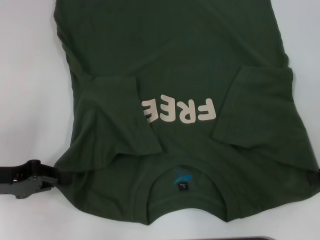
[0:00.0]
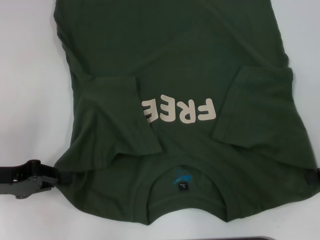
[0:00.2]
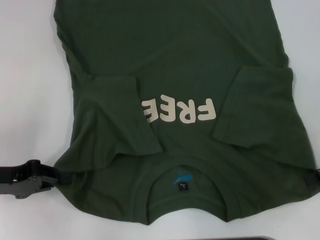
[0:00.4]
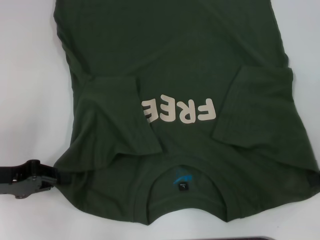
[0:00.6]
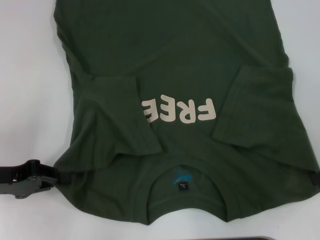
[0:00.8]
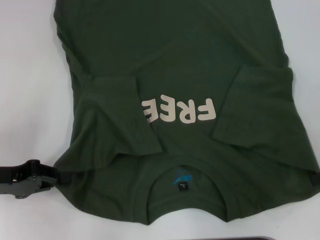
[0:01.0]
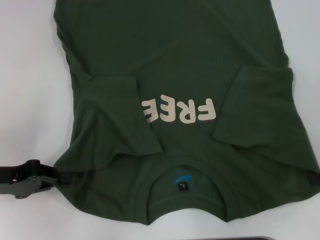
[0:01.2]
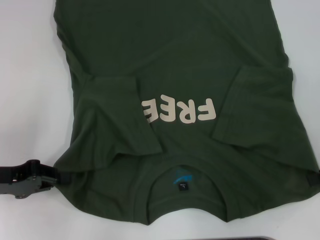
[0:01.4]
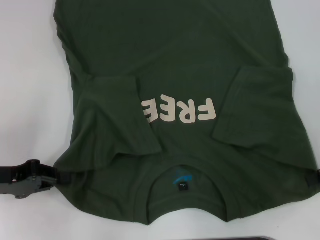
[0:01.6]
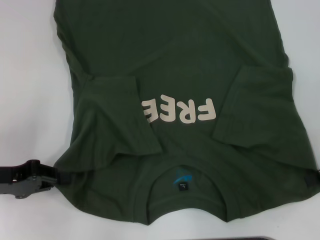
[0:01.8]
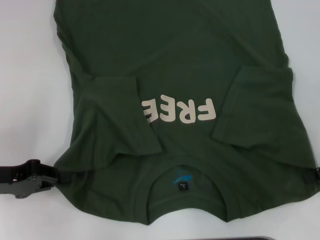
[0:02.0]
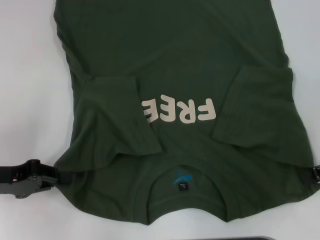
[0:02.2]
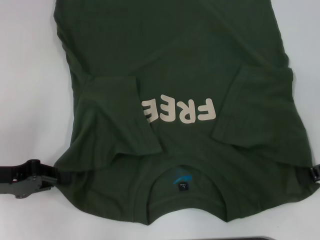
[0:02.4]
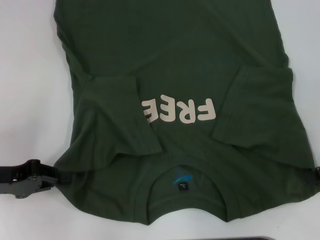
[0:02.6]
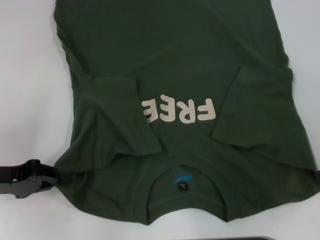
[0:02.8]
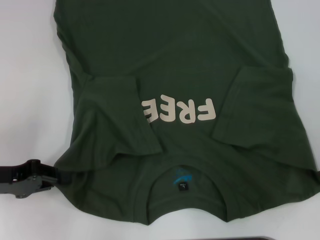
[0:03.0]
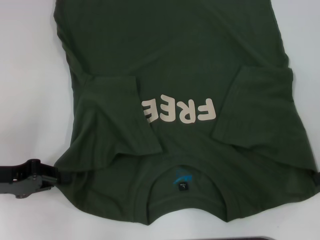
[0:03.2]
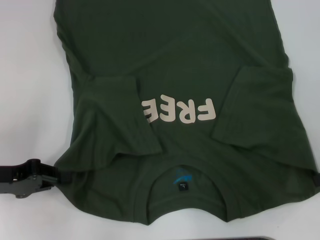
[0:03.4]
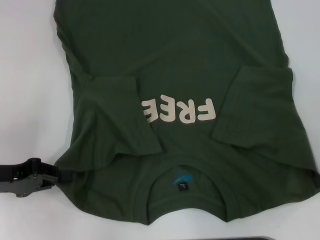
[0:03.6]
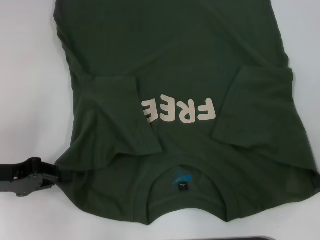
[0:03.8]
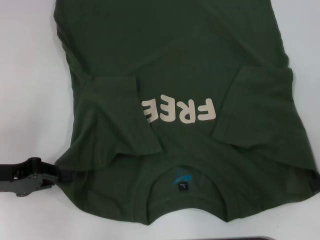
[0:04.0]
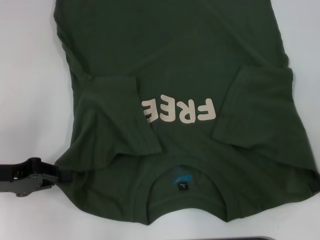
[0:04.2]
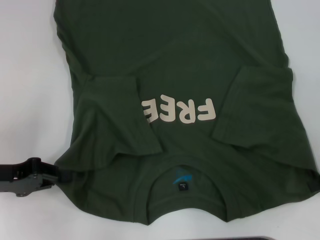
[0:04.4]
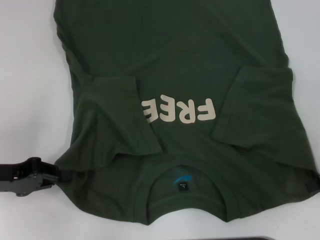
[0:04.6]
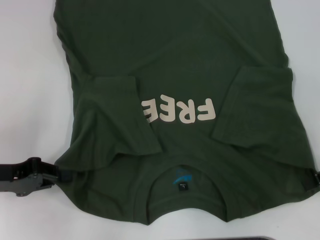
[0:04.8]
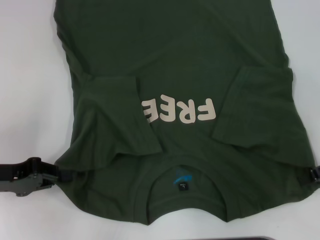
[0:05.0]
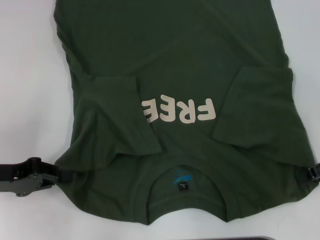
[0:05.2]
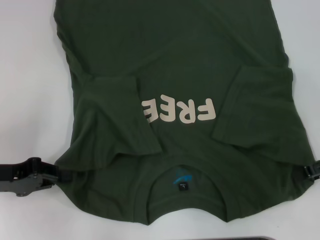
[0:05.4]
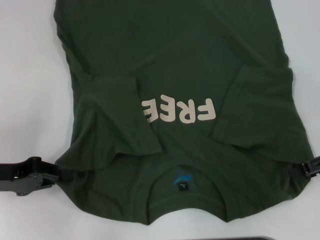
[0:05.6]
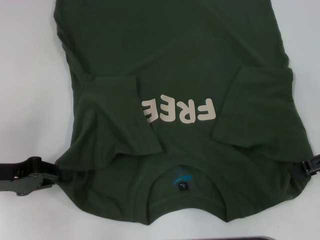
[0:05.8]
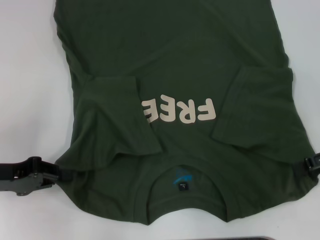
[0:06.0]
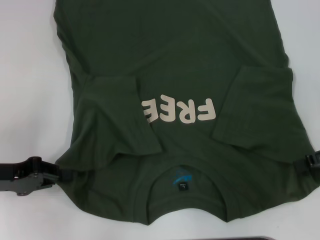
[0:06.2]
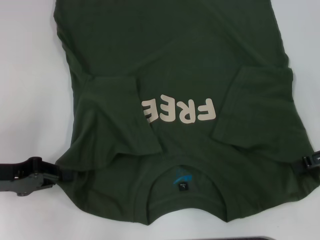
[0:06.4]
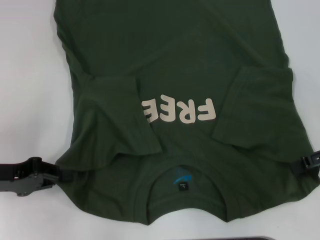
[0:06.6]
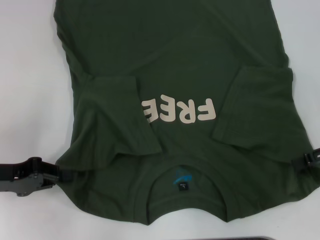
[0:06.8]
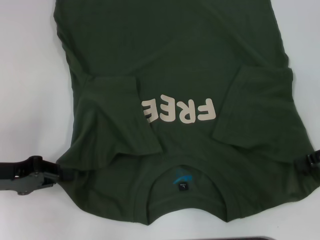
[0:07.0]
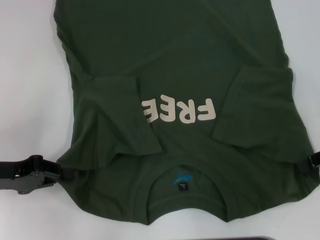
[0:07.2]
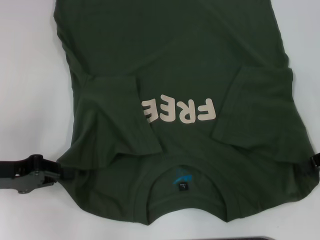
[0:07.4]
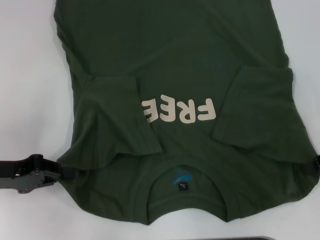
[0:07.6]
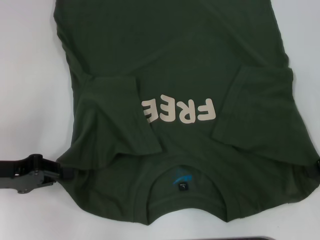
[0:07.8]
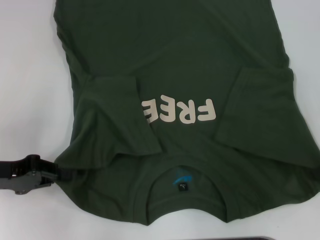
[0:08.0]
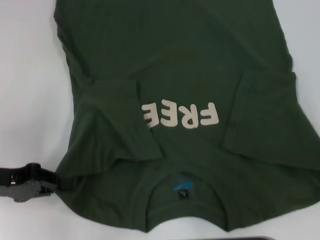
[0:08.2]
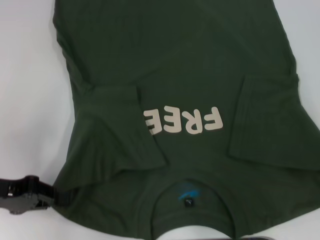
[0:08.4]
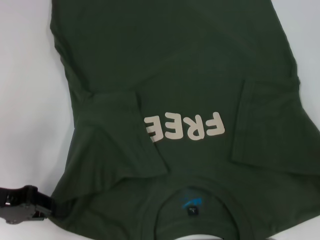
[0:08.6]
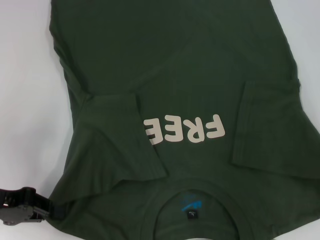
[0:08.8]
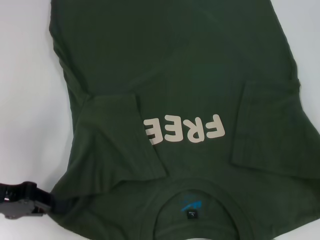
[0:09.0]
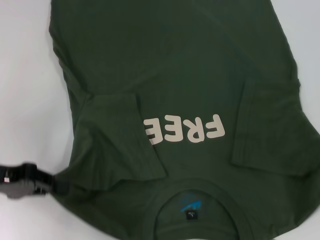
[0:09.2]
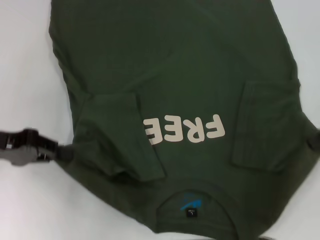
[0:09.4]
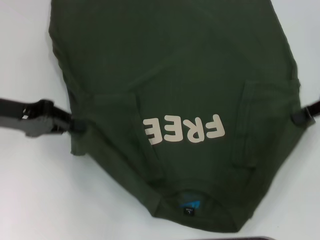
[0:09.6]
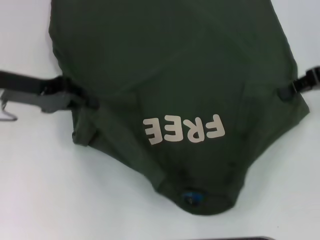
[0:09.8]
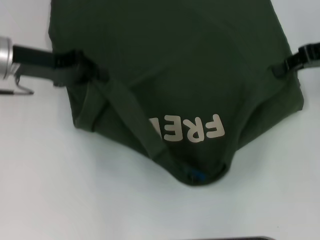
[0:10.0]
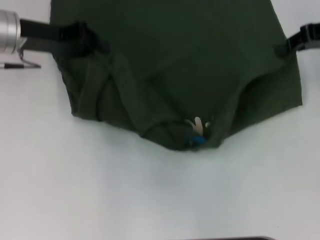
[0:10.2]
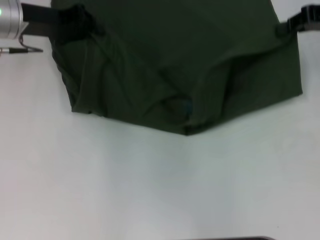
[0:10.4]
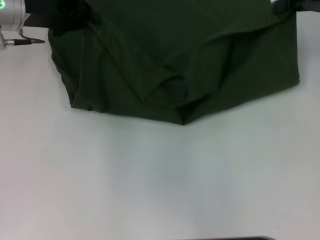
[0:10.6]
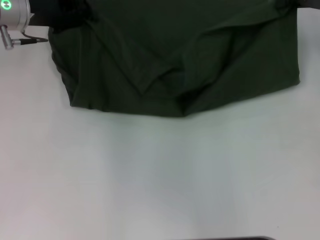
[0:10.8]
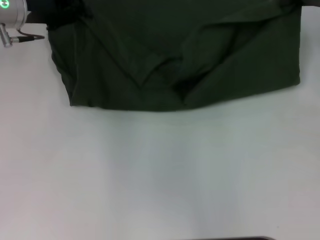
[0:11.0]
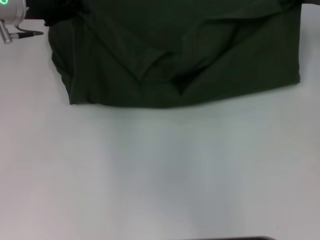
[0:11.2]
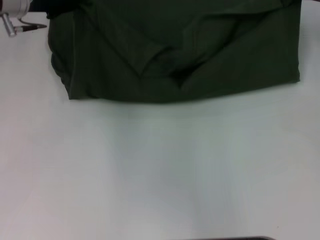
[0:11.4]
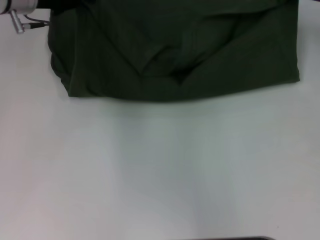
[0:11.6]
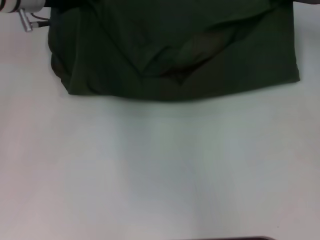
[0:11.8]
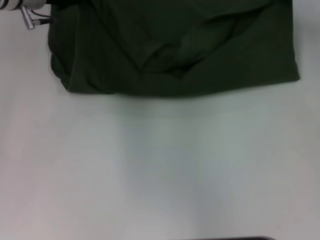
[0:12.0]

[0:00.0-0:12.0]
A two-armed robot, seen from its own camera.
Step, 0:00.0 to 0:08.2: Grab the bottom right corner with your right hand.
0:00.0 to 0:01.6: Neither gripper changes place.
0:04.4 to 0:06.0: The grippers make only small movements.
0:09.0 to 0:10.4: The right gripper goes roughly 15 cm forward, upward and to the left; the left gripper heads forward, upward and to the right, covering approximately 20 cm.
0:10.4 to 0:12.0: The left gripper ends up about 5 cm from where it was; the right gripper shifts by approximately 5 cm.

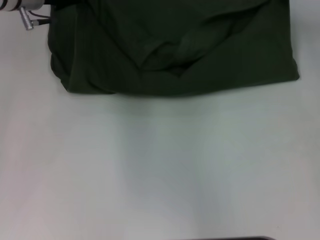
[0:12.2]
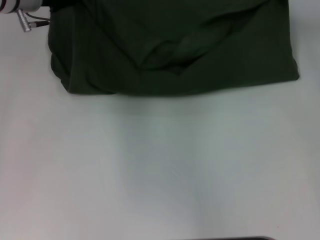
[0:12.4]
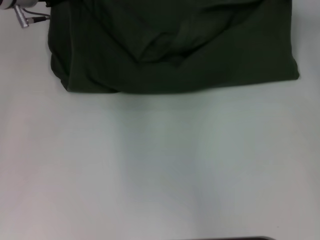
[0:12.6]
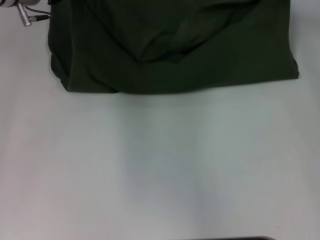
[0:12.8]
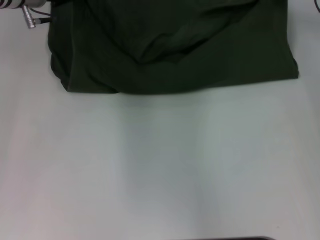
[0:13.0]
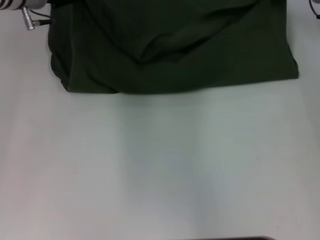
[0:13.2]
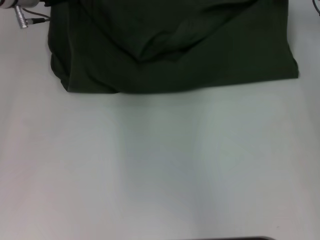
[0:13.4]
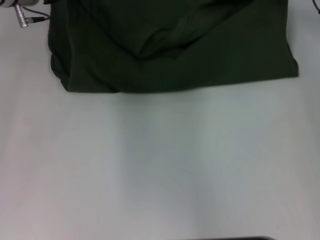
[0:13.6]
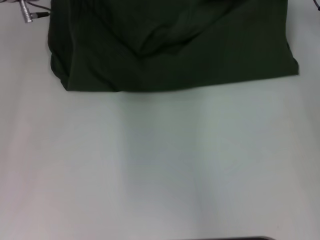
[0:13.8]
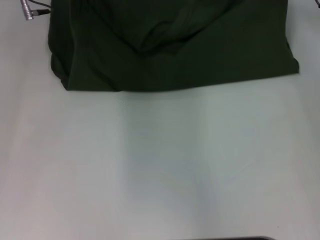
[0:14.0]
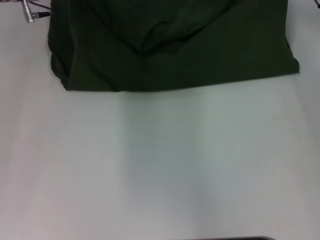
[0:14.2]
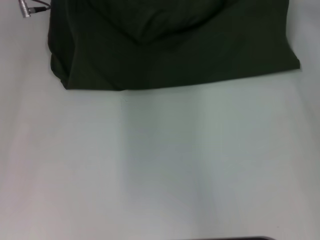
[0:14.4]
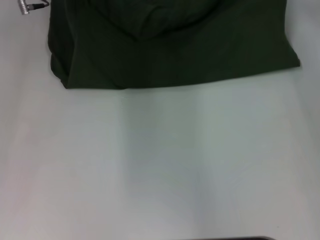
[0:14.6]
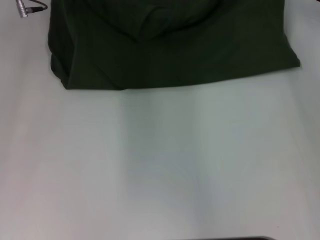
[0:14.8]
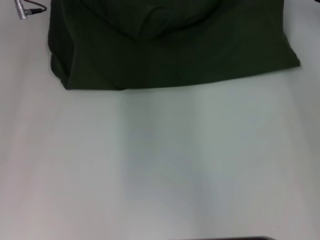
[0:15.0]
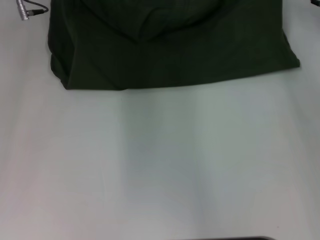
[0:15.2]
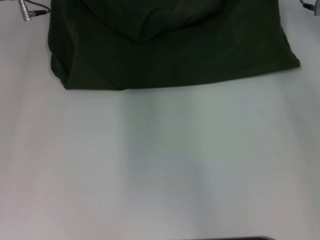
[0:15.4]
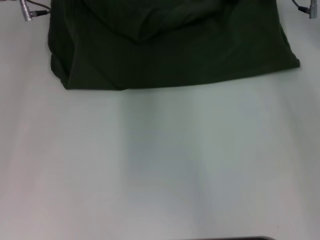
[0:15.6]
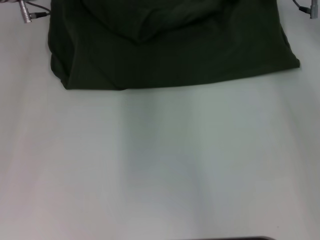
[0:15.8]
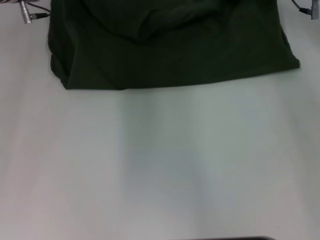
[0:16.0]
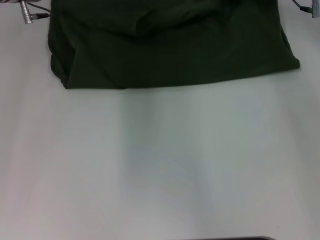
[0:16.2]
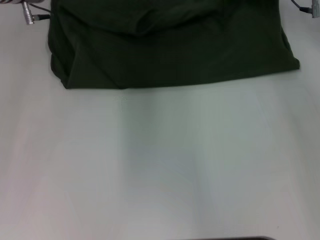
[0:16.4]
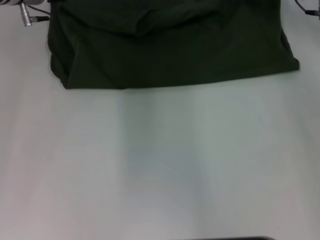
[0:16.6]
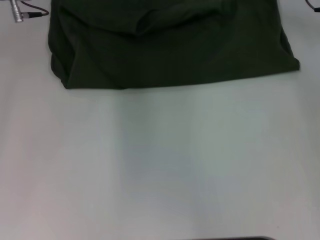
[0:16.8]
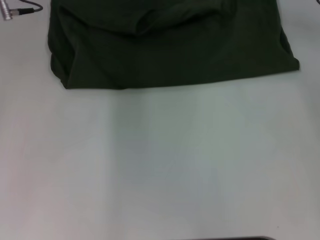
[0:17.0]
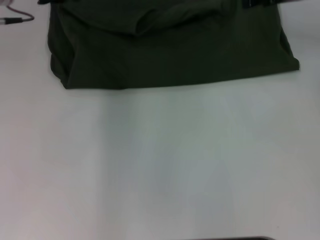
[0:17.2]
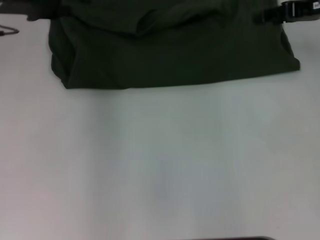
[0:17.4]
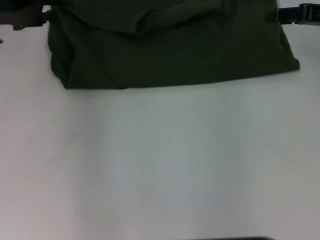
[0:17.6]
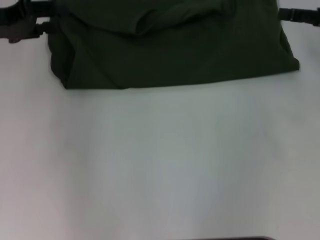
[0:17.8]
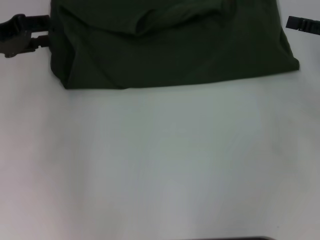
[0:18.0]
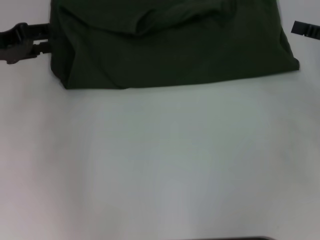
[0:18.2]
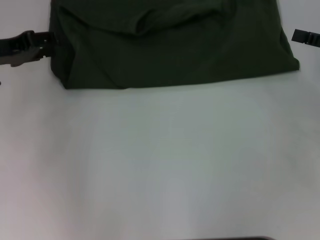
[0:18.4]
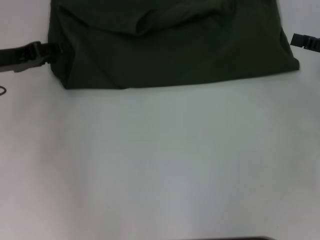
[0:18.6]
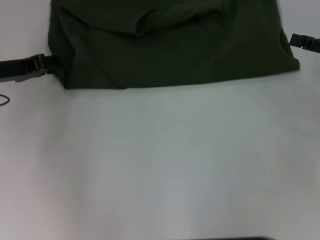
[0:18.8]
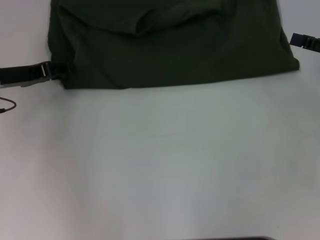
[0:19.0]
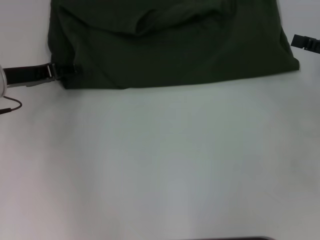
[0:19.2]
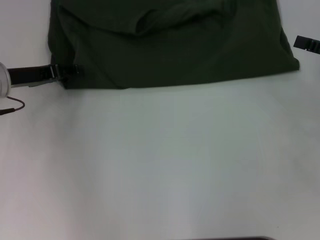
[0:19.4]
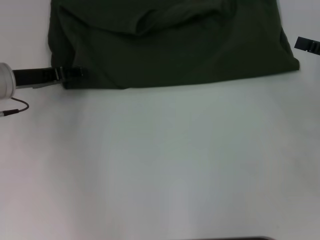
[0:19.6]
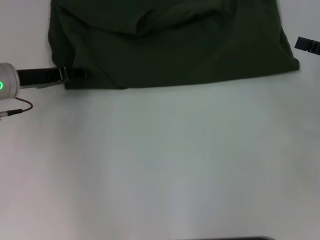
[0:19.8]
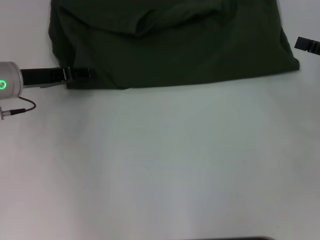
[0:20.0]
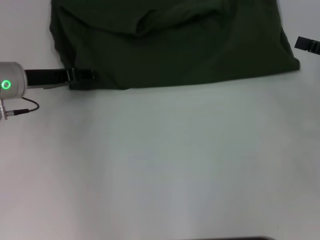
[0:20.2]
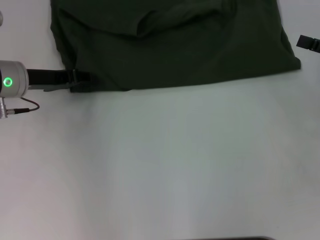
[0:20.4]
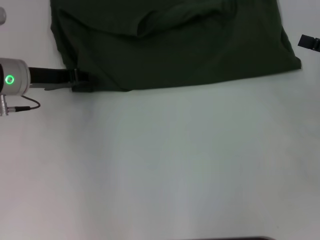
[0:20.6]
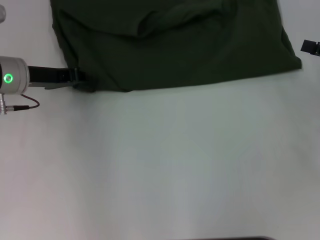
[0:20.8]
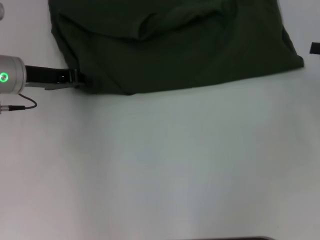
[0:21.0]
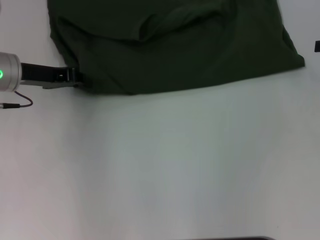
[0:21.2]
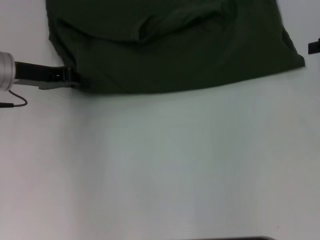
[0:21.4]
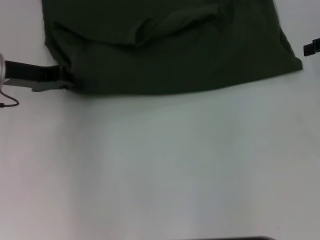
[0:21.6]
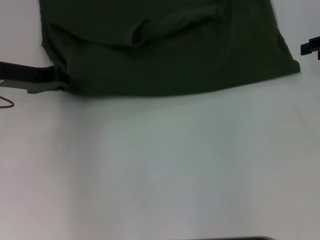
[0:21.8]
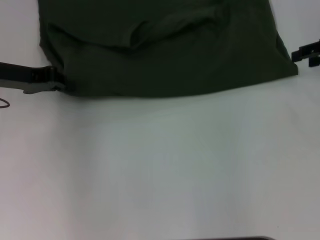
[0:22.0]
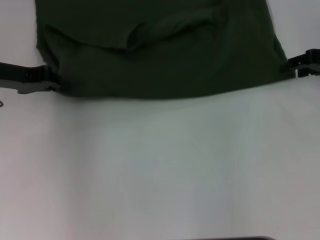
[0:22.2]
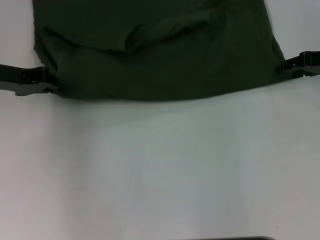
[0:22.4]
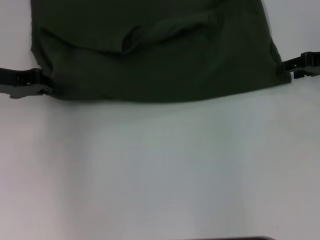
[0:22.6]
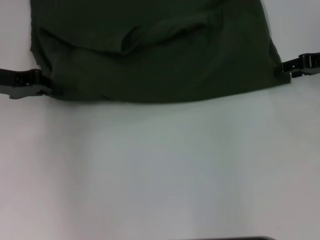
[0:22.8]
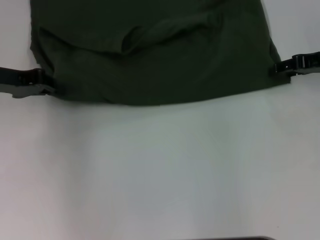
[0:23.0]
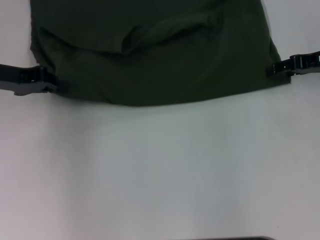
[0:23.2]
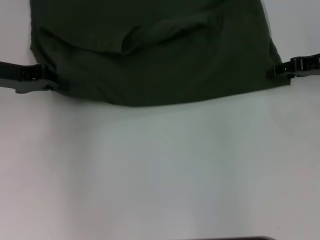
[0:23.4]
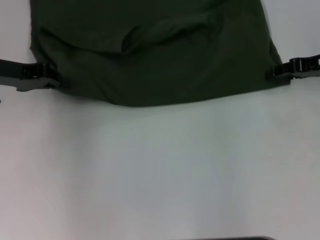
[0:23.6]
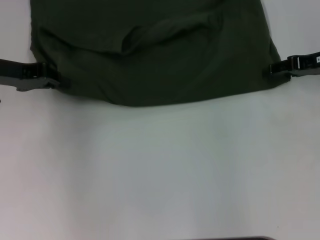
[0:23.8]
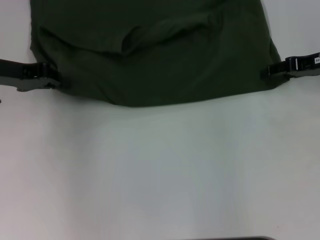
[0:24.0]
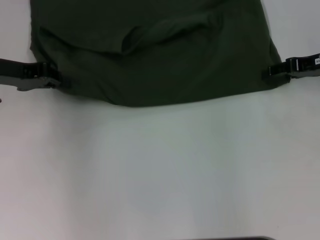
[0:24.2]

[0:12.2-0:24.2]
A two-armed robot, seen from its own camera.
Step, 0:12.2 to 0:17.0: Fold the clothes with your left hand.
Step, 0:12.2 to 0:17.0: Fold the clothes with your right hand.
0:12.2 to 0:13.8: The grippers stay close to where they were, moving slightly.
0:13.8 to 0:15.2: The grippers move only a little.
0:15.2 to 0:16.6: The left gripper opens; the right gripper opens its fingers.
0:16.6 to 0:18.2: The left gripper moves to the left and backward, approximately 15 cm; the right gripper travels backward and to the right by some 20 cm.
0:18.2 to 0:19.8: The left gripper shifts roughly 5 cm downward.
0:19.8 to 0:21.2: The left gripper closes its fingers. Meanwhile the right gripper is displaced forward by some 5 cm.
0:21.2 to 0:22.6: Both grippers move to the left, roughly 5 cm.
0:22.6 to 0:24.2: There are only small adjustments of the grippers.
